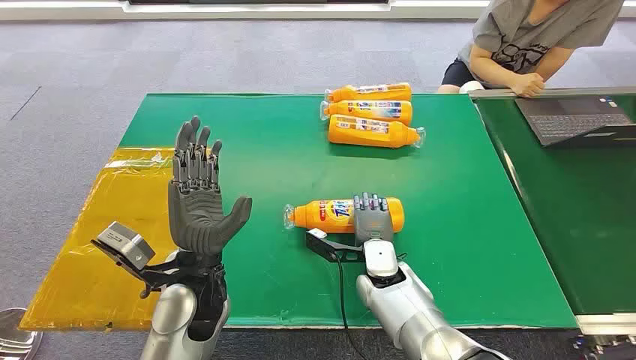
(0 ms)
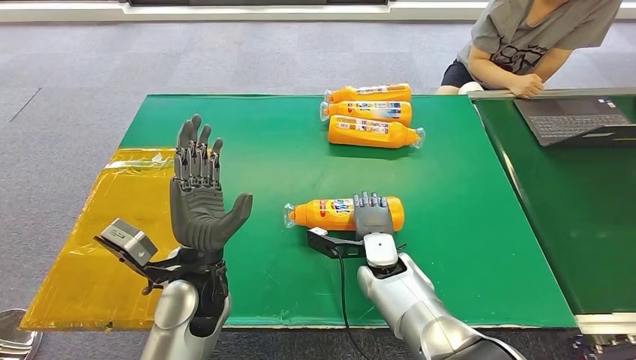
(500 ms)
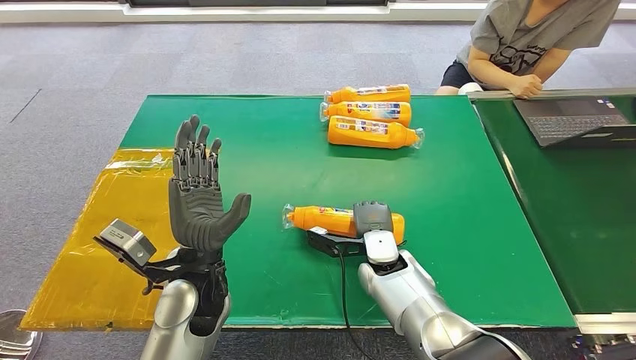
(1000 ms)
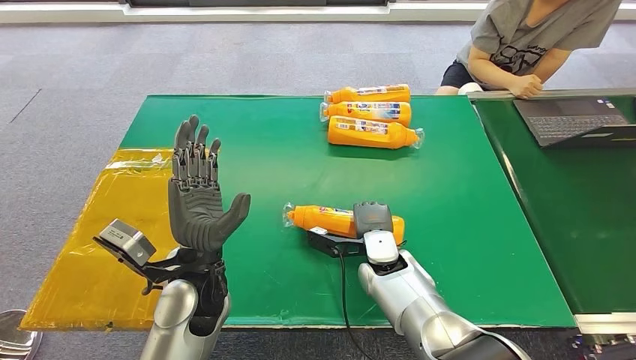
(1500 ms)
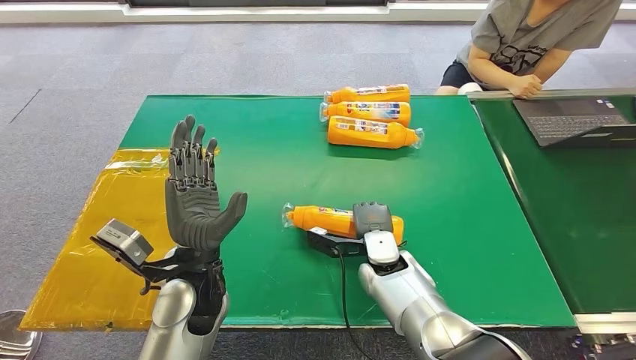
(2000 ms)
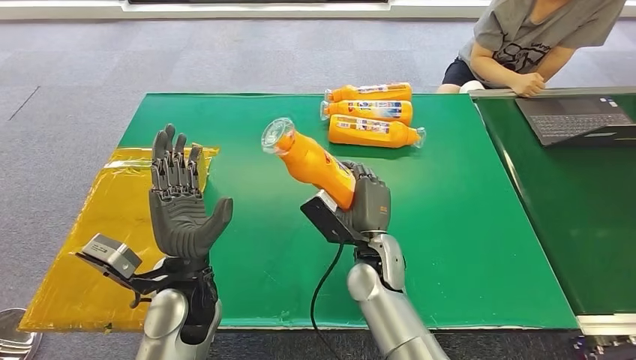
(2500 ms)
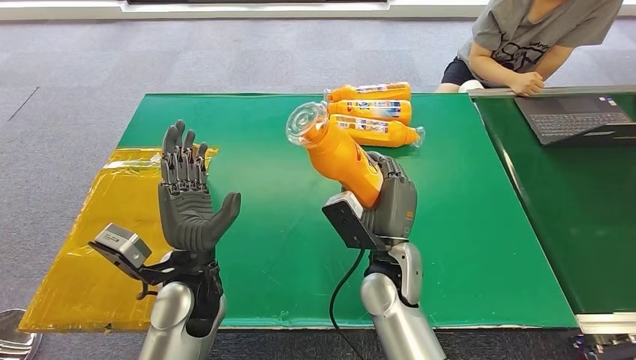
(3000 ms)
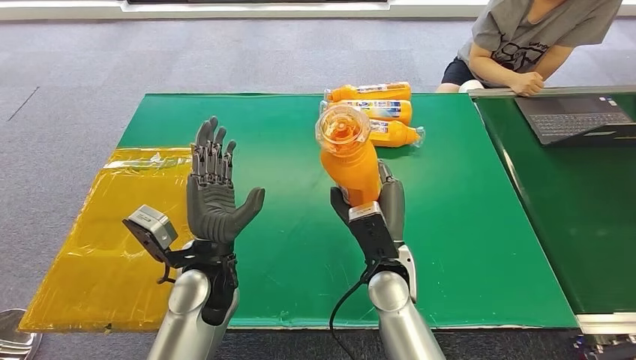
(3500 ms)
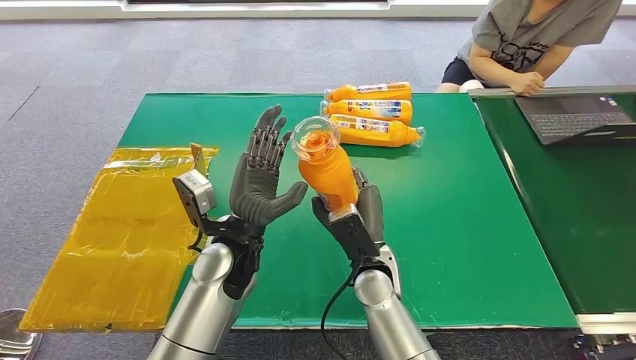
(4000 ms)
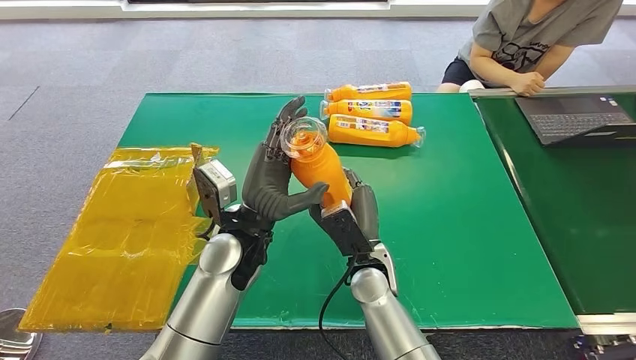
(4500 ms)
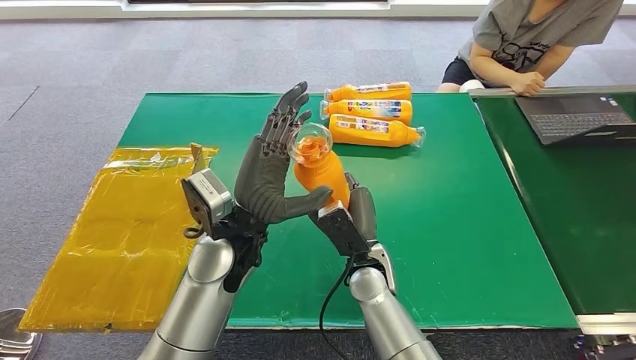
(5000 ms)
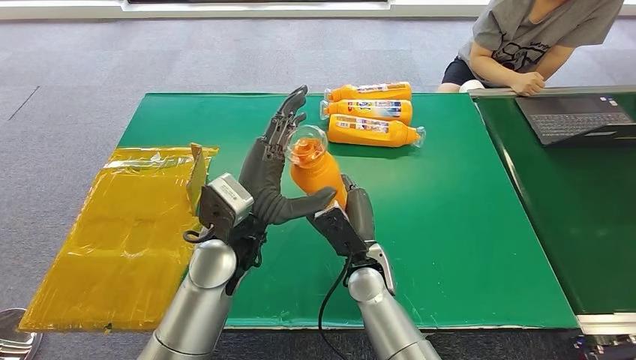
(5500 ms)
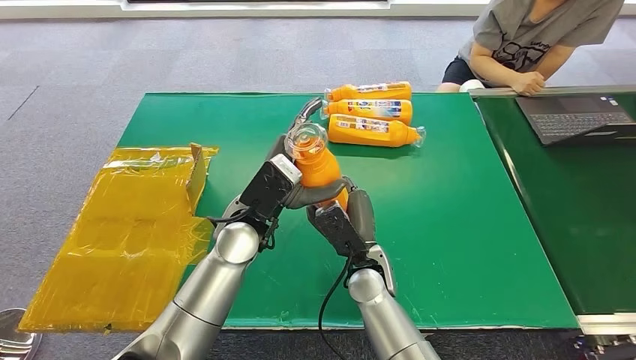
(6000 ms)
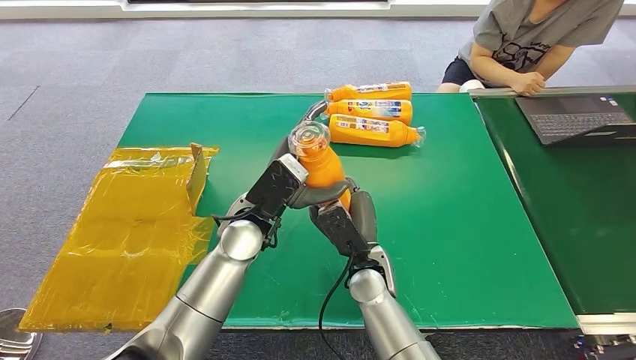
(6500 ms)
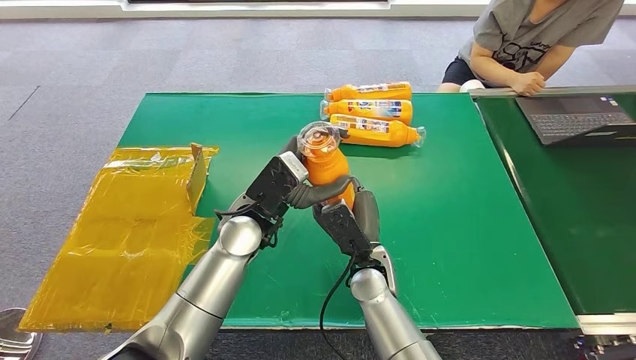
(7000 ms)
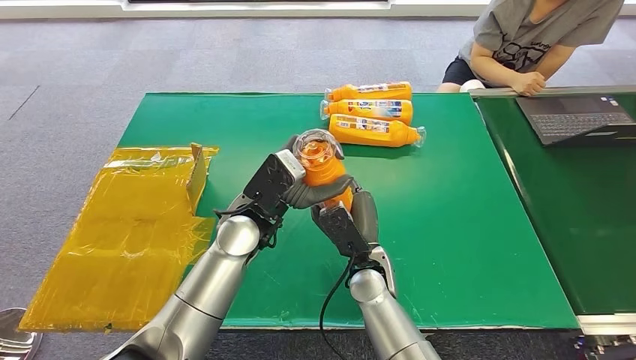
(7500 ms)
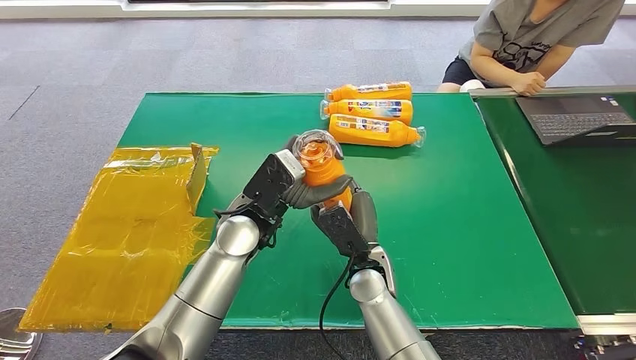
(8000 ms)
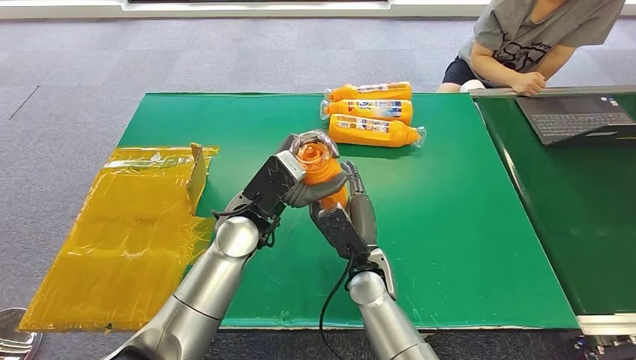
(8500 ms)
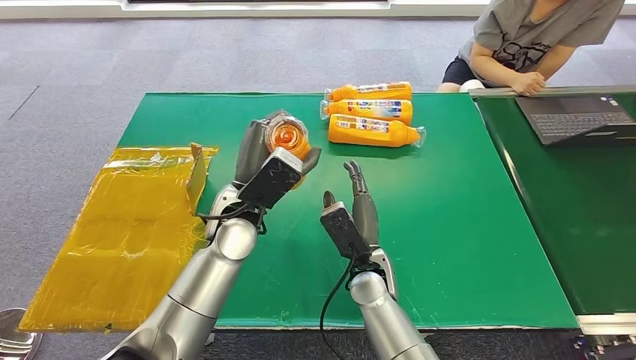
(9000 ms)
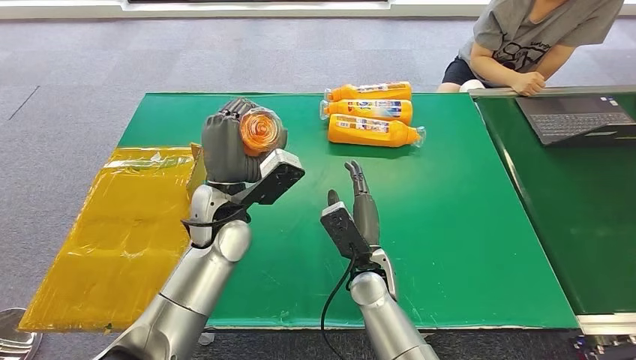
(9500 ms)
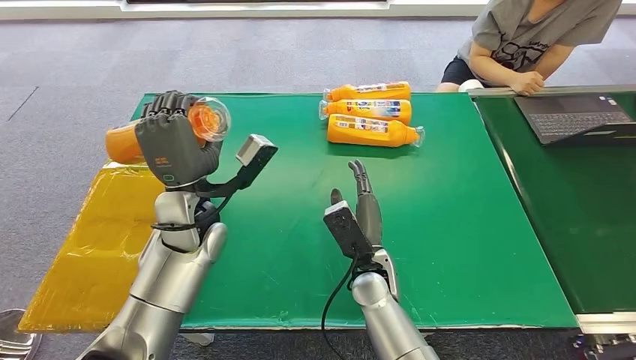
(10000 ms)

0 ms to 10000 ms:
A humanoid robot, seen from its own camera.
Step, 0 ms to 2500 ms: Pick up the bottle from the table.
Step, 6000 ms to 10000 ms: Turn the bottle to the front side.
6000 ms to 8000 ms: The hands stay close to where they were, moving slightly.
8000 ms to 10000 ms: The left hand shifts approximately 10 cm to the left.
